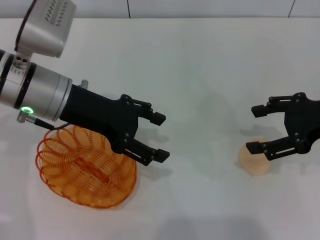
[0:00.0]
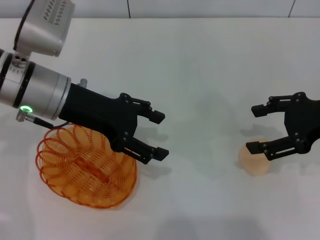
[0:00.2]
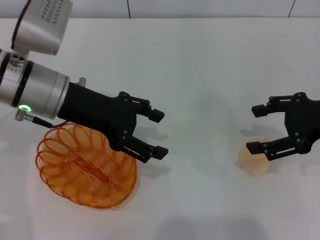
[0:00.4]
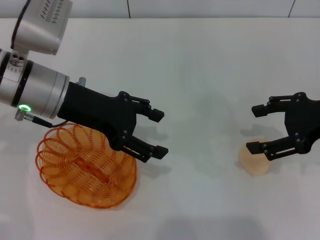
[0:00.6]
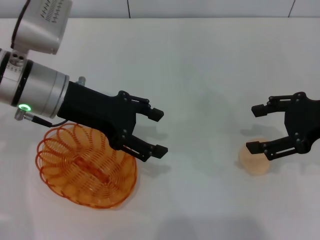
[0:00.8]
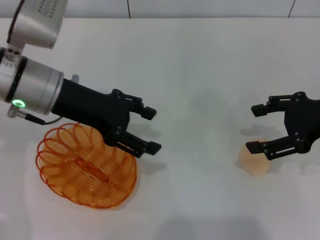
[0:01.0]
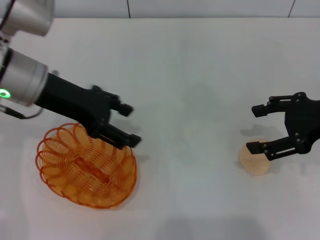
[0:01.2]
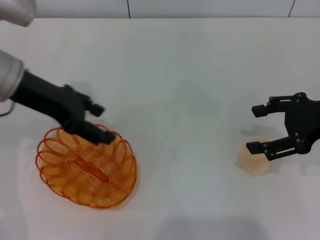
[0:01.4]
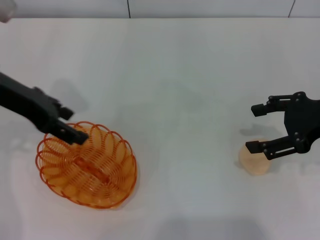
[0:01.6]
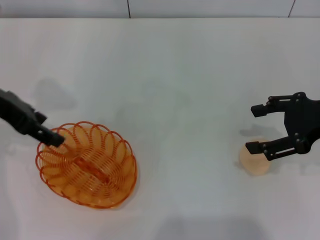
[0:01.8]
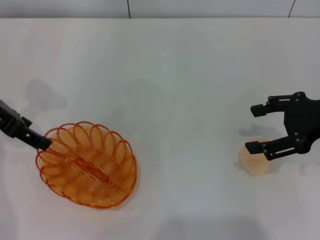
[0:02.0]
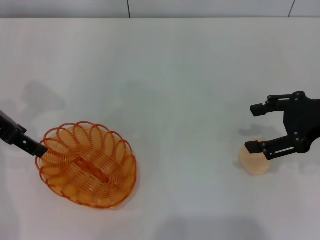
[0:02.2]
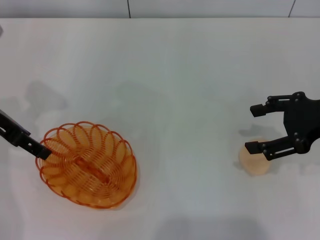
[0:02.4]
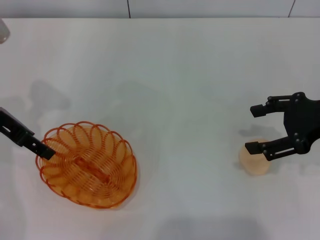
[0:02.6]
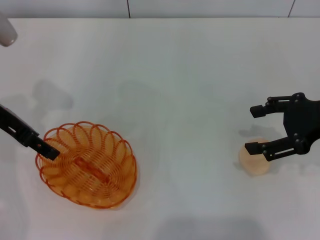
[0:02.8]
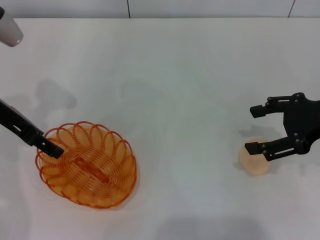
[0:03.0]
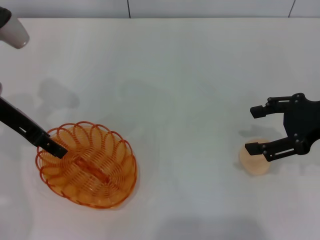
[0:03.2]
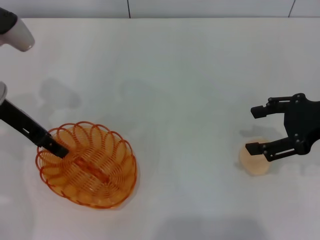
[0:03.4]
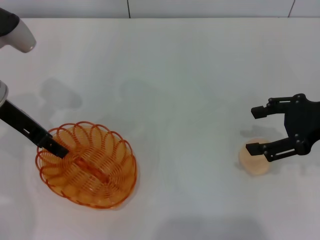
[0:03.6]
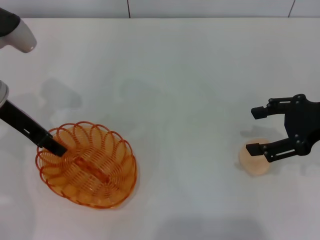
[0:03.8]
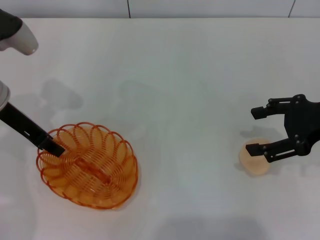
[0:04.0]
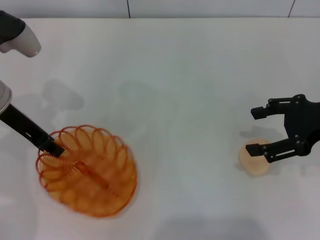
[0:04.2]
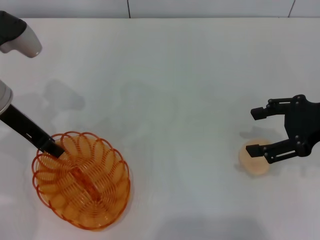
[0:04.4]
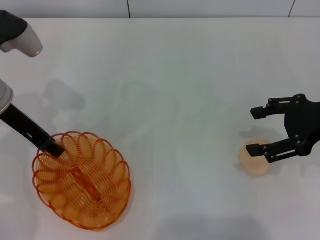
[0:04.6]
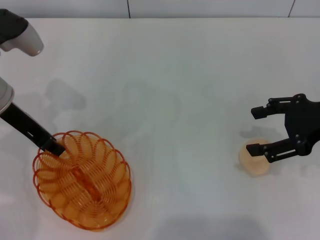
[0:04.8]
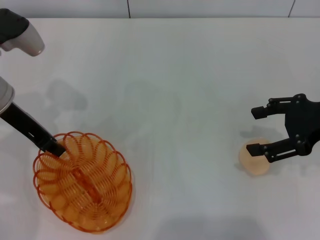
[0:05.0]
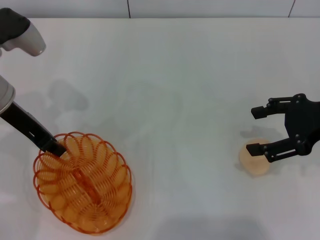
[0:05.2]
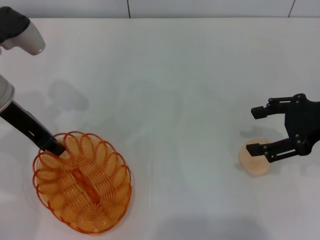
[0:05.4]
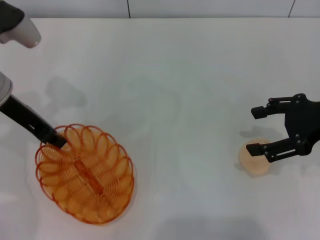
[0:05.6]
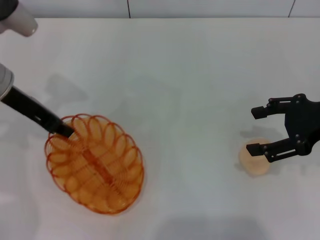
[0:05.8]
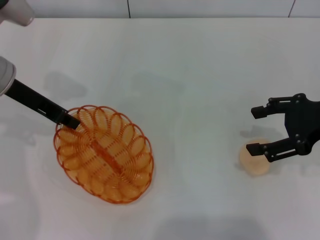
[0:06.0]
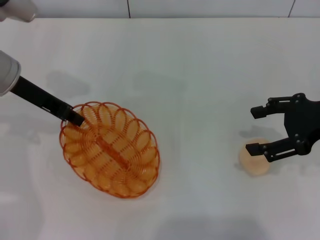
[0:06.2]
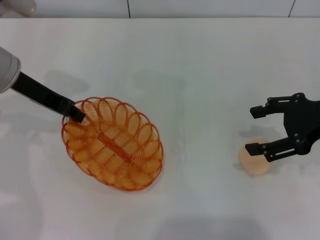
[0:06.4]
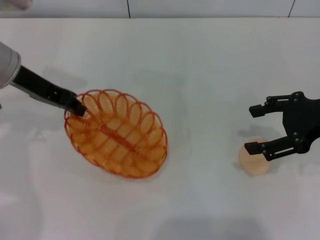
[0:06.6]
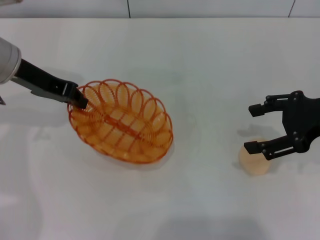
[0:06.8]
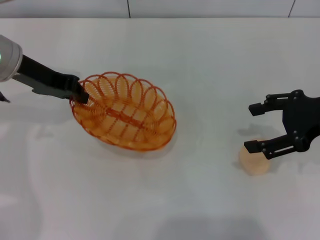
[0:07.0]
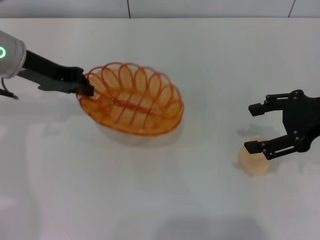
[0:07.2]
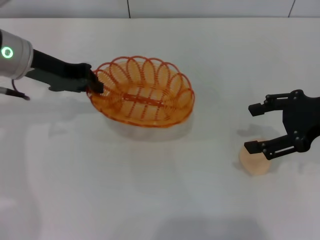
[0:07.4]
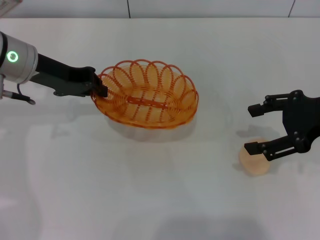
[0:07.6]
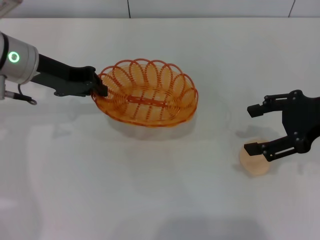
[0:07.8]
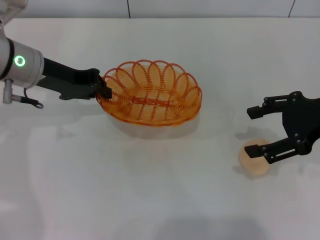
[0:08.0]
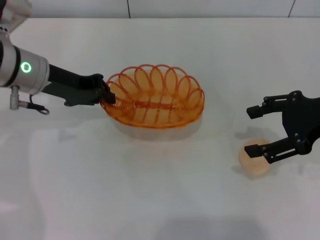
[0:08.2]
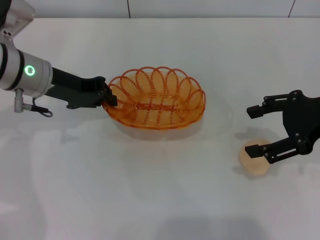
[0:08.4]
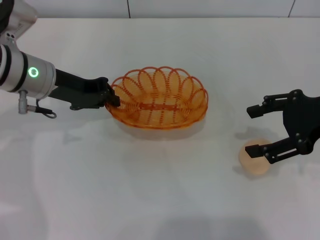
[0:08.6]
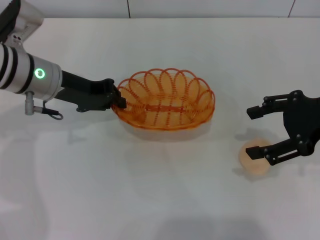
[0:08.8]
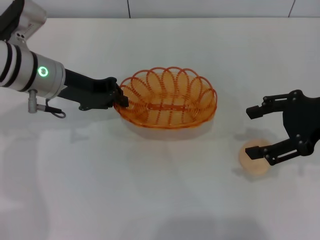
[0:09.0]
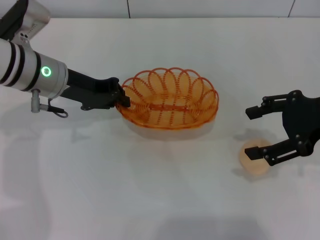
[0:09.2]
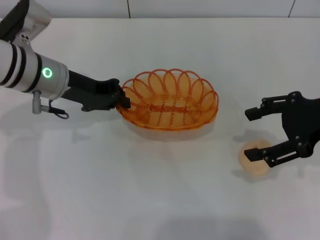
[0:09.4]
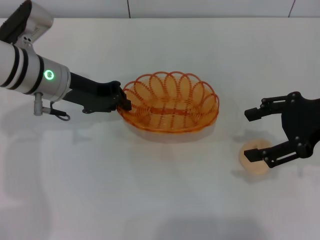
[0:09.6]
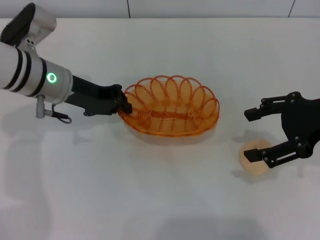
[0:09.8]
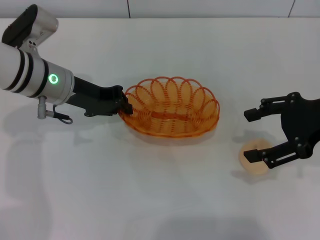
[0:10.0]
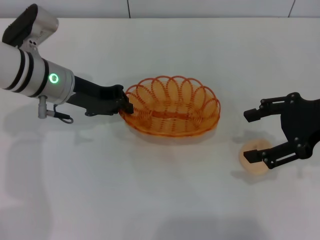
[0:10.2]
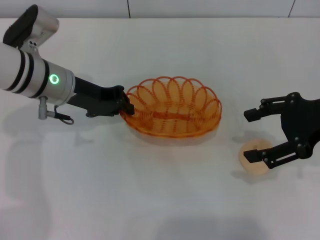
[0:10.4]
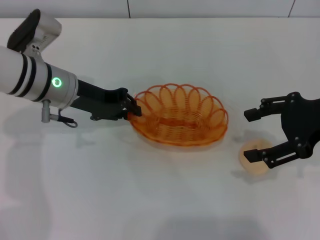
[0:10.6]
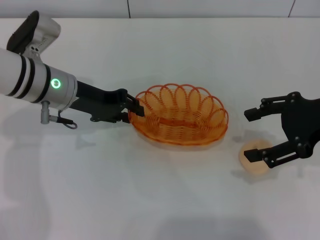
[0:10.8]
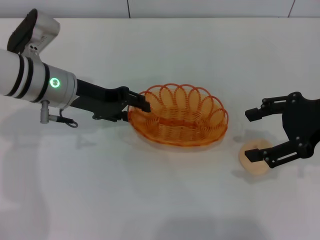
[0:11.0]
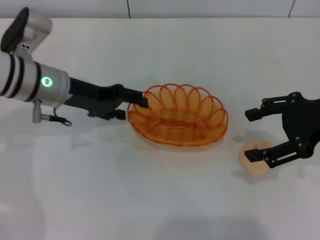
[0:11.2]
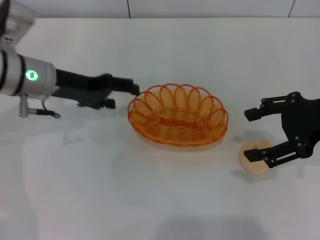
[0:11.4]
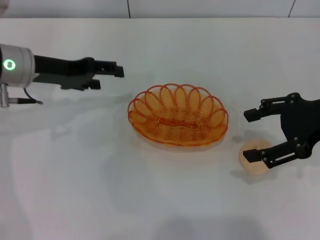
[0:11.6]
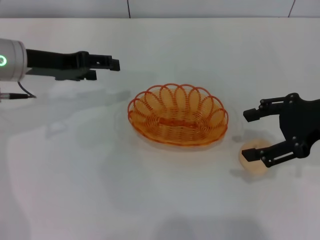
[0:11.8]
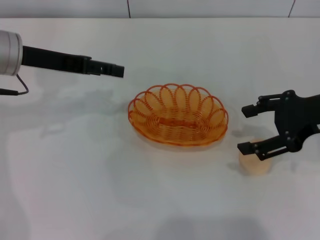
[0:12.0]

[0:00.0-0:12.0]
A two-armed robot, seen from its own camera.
Step, 0.0 to 6.6 s: Pick up the basket with the left gripper.
Step, 6.8 to 11.6 s: Place the basket in the center of view with the left gripper.
0.0 to 1.6 s: The left gripper travels to the left by about 5 cm.
1.6 to 3.0 s: The grippers make only small movements.
3.0 to 4.4 s: The left gripper closes up.
4.4 to 6.0 s: The grippers move only a little.
7.6 to 10.4 s: The grippers make only small movements.
10.4 to 12.0 s: The left gripper heads upward and to the left, covering some 10 cm, and opens.

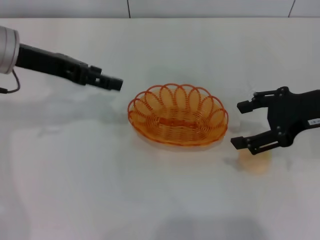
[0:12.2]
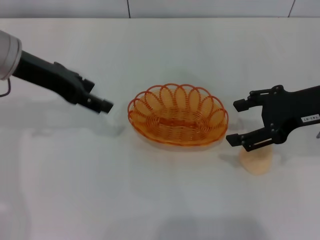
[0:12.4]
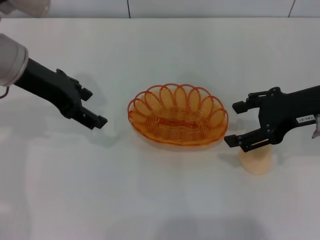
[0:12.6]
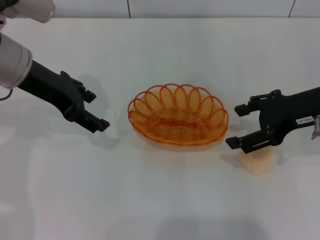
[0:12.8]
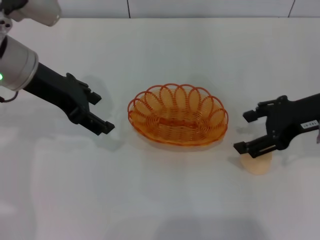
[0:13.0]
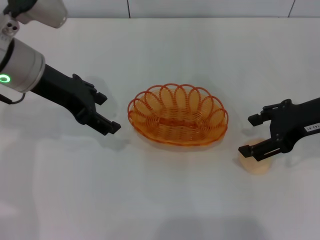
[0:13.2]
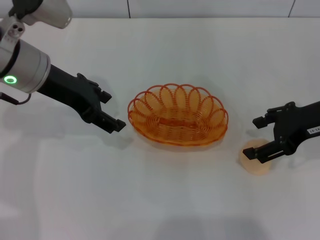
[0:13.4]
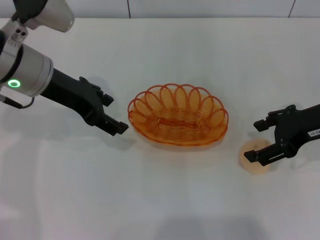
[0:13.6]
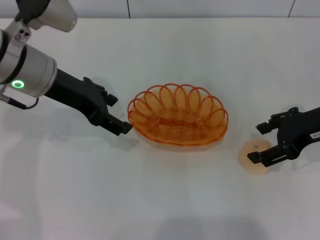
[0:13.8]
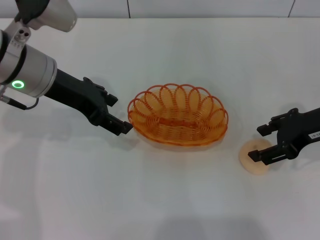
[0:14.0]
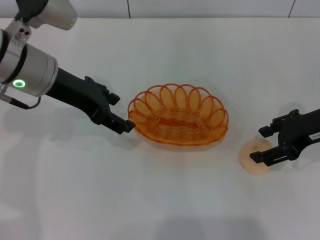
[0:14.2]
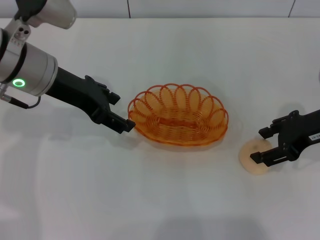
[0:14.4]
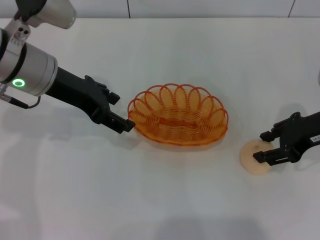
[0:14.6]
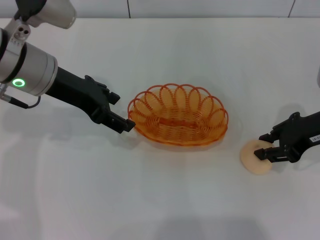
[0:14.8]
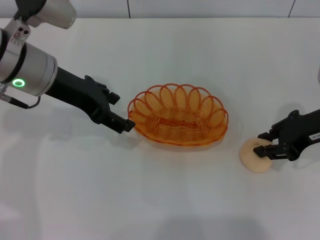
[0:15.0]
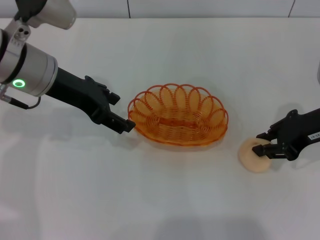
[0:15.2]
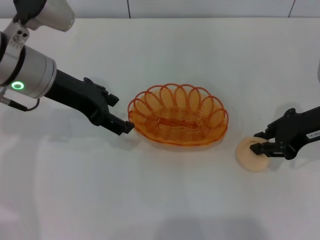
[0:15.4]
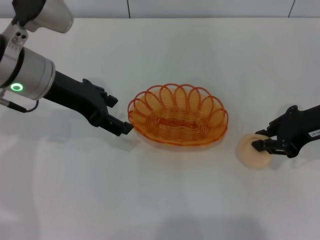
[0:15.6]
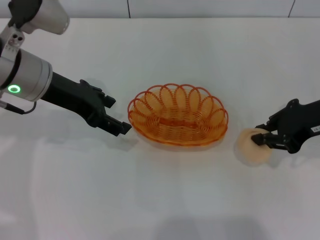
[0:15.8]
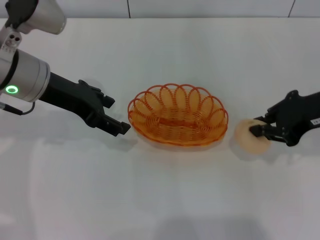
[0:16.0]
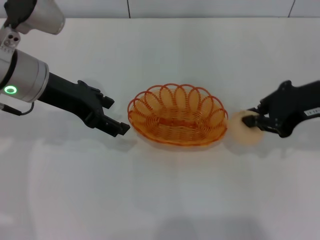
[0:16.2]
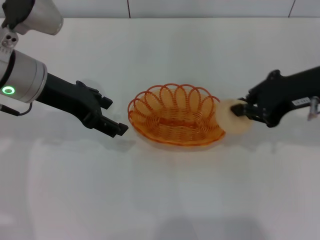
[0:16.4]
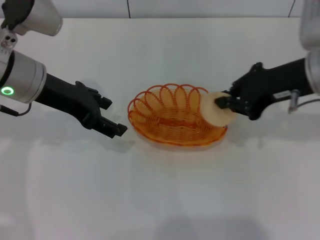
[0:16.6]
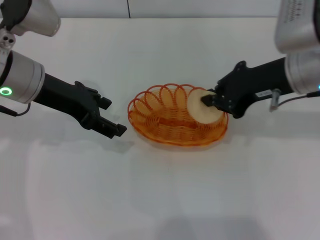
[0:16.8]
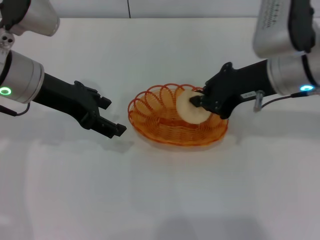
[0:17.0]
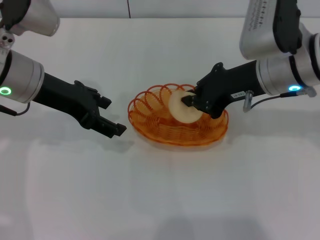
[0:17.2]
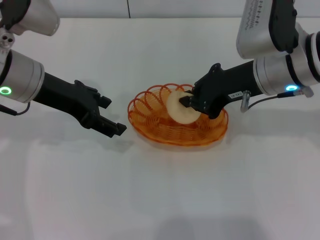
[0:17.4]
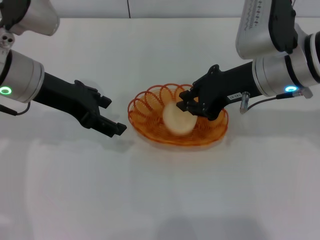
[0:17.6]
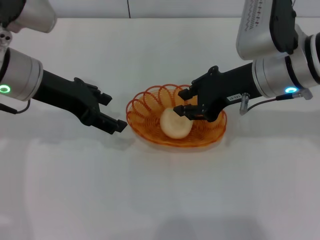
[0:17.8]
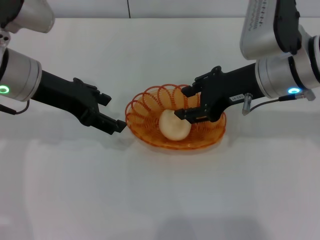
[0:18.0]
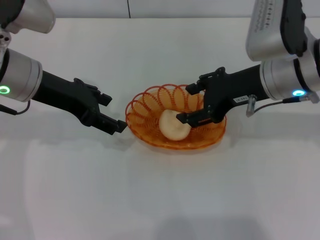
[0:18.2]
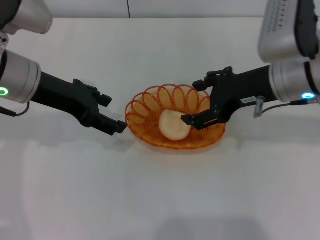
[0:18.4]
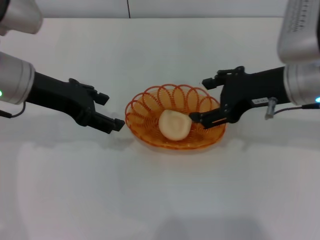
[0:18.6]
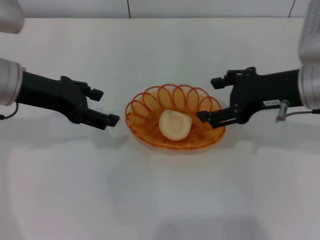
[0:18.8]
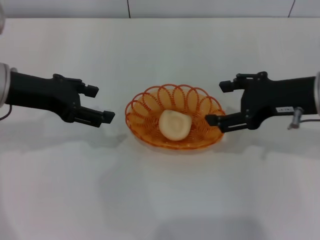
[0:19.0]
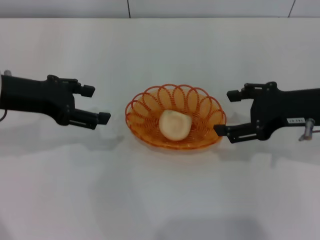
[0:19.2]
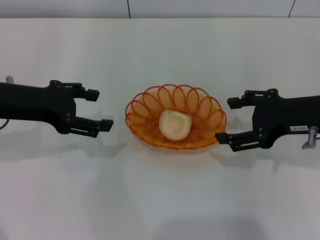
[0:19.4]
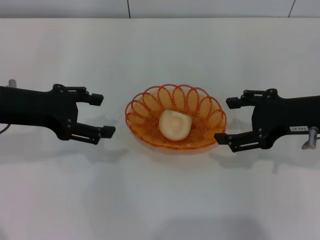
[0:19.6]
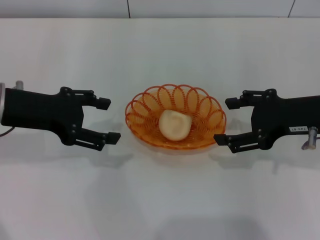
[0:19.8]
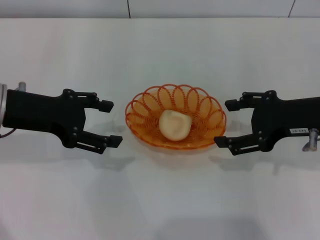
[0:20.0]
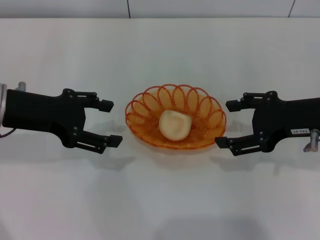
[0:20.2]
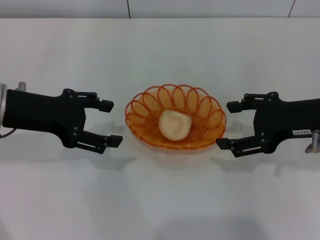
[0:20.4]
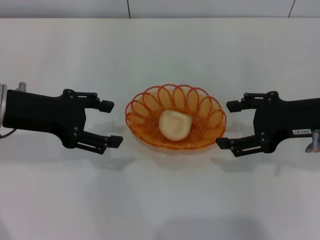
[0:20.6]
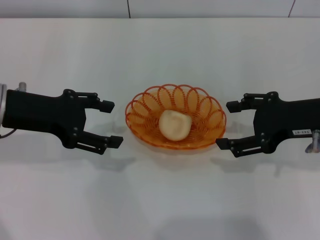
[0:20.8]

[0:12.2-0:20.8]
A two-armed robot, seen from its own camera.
Step, 12.2 to 16.0 s: Pick up the egg yolk pastry with the right gripper.
Step, 16.2 to 19.0 s: Place the egg yolk pastry into the basket with the right gripper.
13.6 to 15.0 s: The right gripper closes.
15.0 to 16.6 s: The right gripper heads to the left and upward, covering about 5 cm.
16.6 to 18.0 s: The right gripper changes place by roughly 5 cm.
18.0 to 19.4 s: The left gripper moves approximately 5 cm. The right gripper moves to the right and backward, approximately 10 cm, and opens up.
19.4 to 20.8 s: The grippers make only small movements.

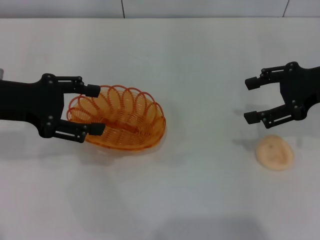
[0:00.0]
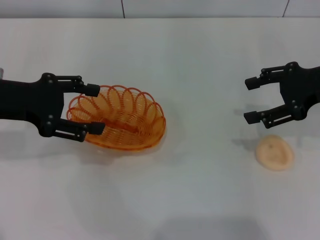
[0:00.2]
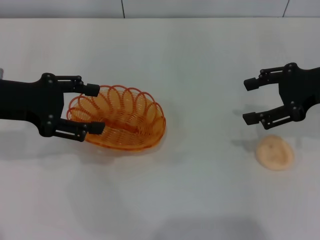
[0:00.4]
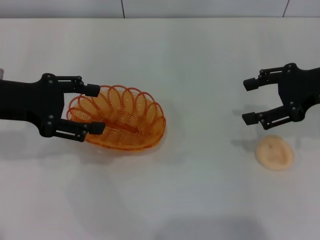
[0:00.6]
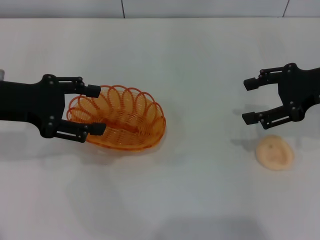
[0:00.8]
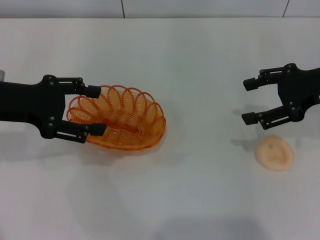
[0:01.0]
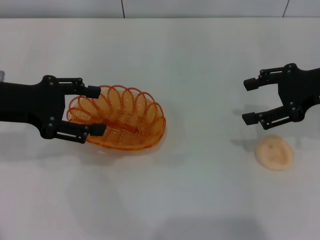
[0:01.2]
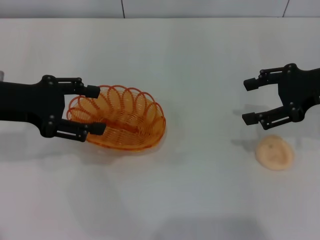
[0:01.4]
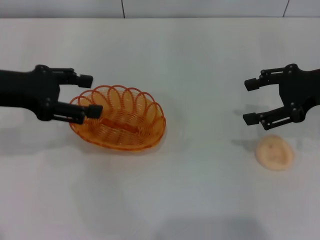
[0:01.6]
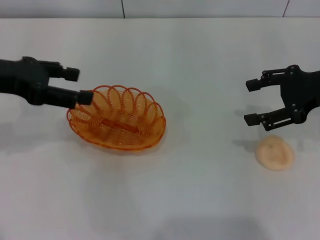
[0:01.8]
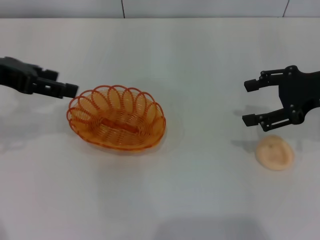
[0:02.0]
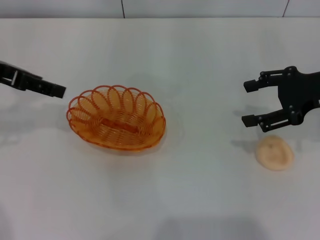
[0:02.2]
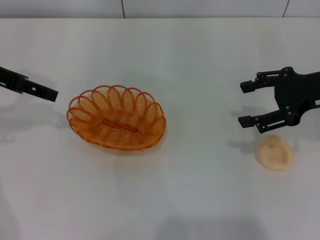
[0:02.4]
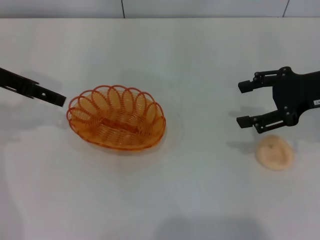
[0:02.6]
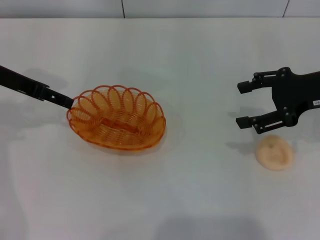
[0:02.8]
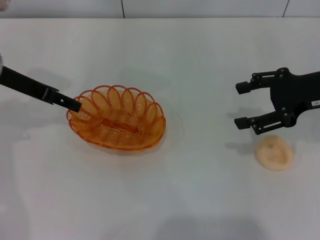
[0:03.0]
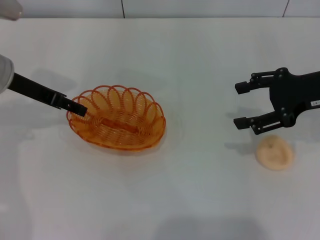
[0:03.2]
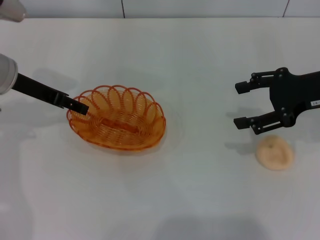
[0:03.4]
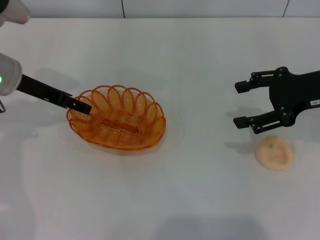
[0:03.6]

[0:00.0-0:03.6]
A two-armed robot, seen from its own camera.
1.8 to 3.6 s: The left gripper heads downward and forward, covering approximately 10 cm.
